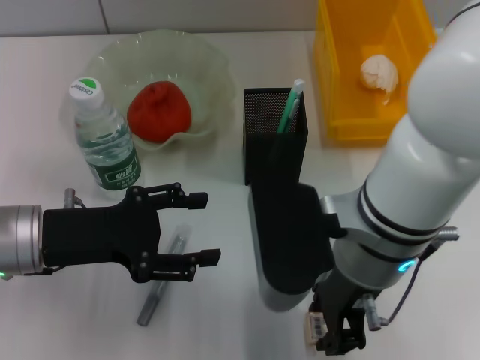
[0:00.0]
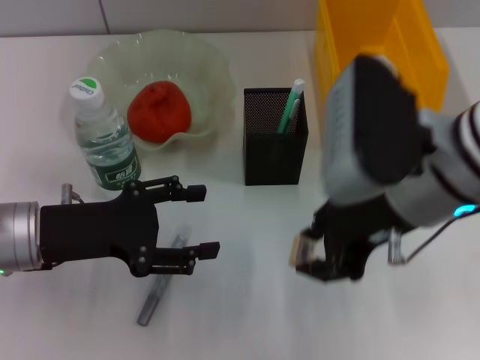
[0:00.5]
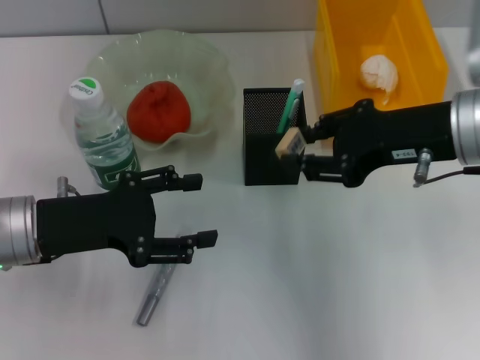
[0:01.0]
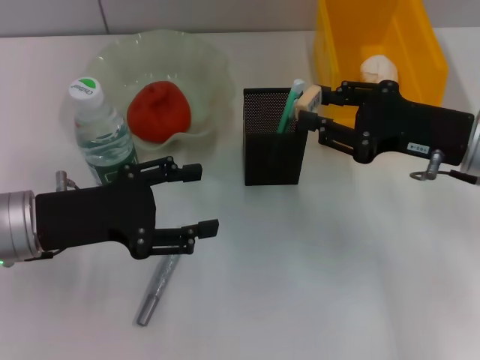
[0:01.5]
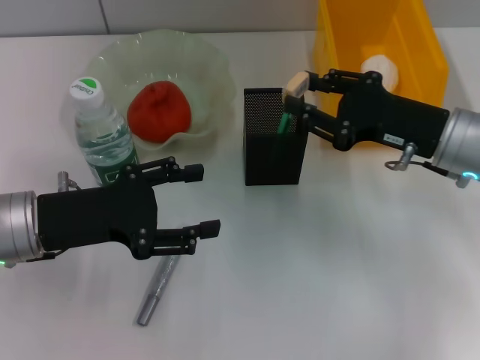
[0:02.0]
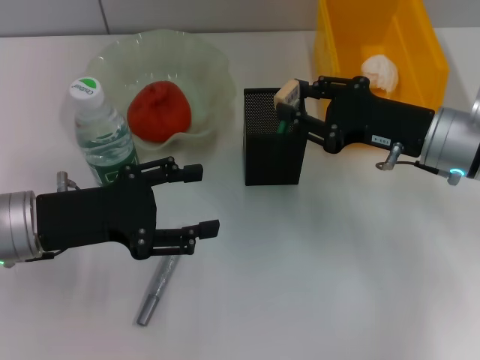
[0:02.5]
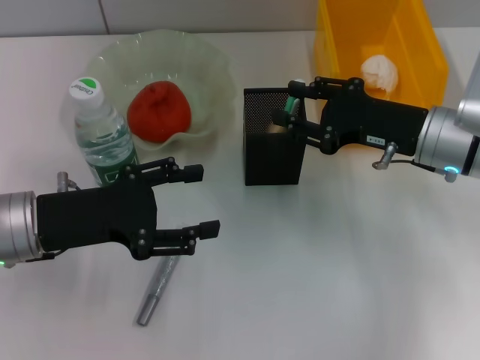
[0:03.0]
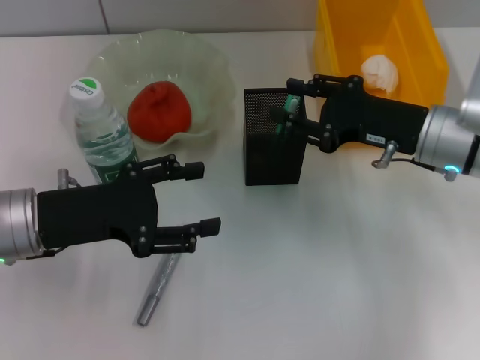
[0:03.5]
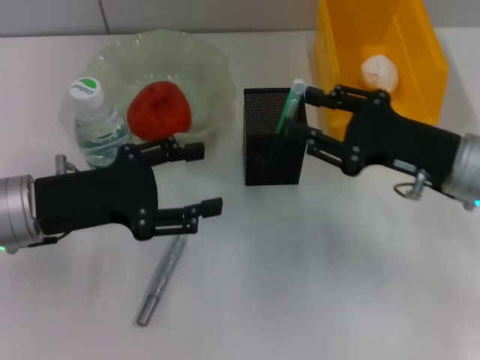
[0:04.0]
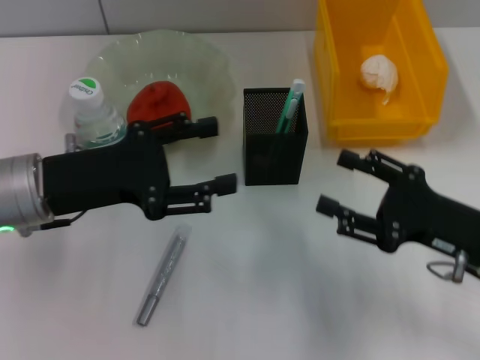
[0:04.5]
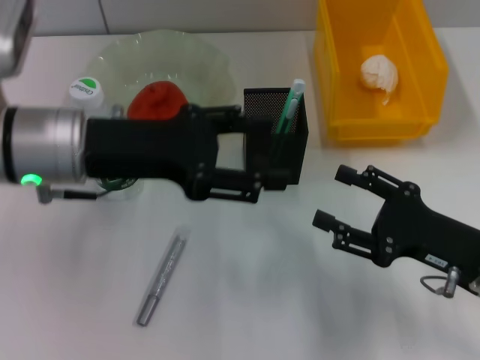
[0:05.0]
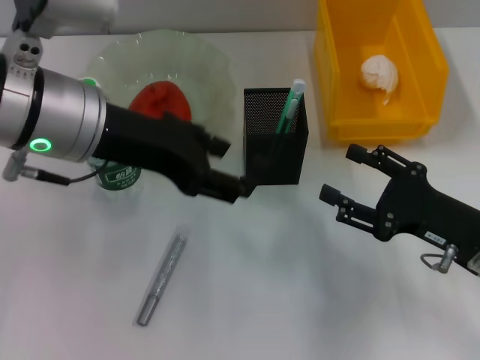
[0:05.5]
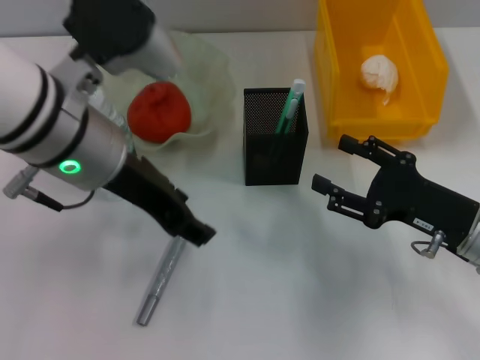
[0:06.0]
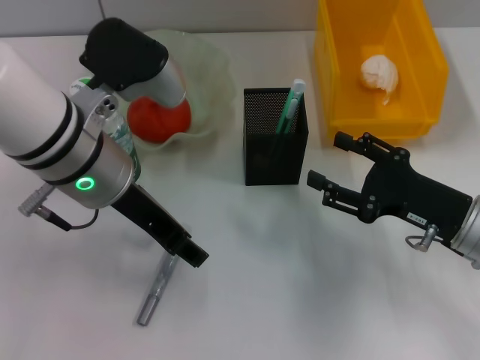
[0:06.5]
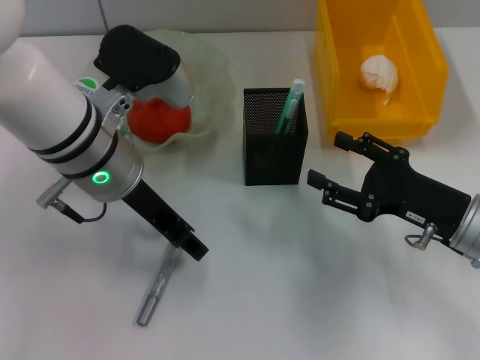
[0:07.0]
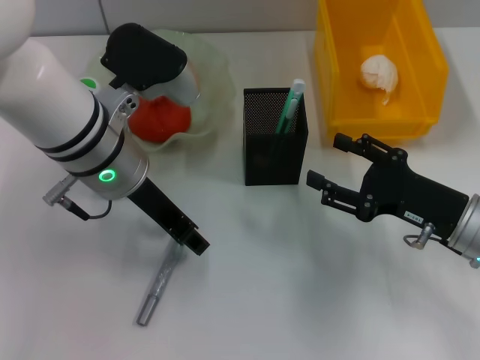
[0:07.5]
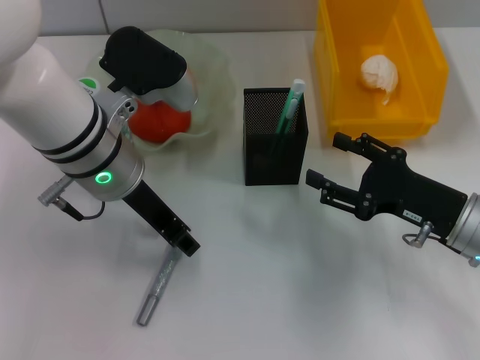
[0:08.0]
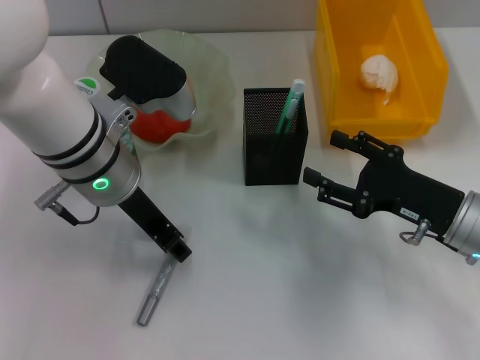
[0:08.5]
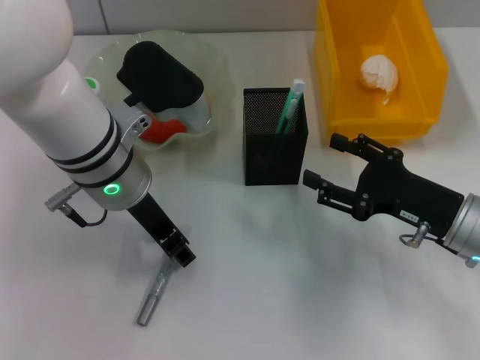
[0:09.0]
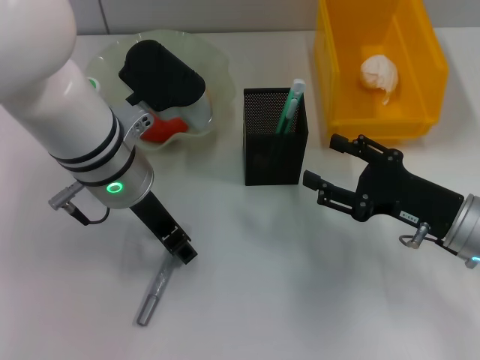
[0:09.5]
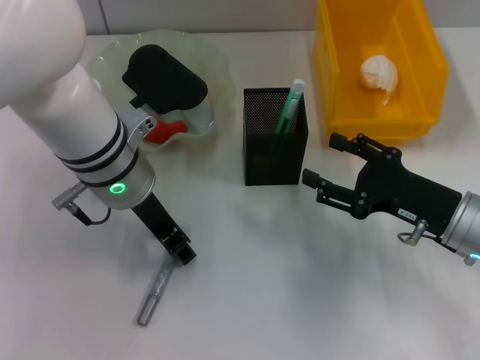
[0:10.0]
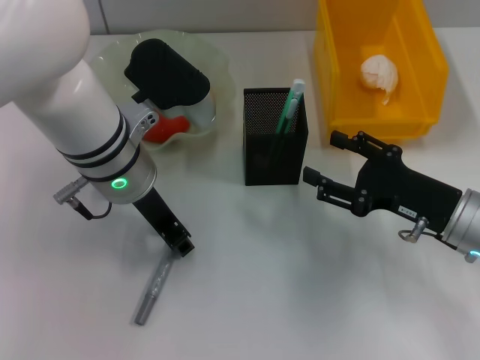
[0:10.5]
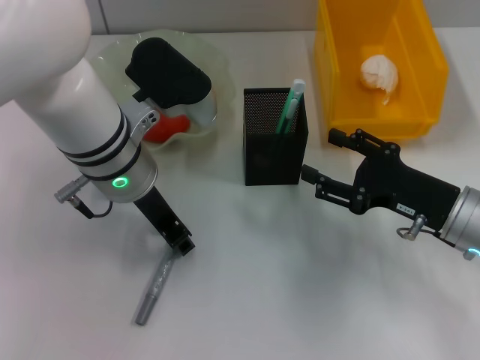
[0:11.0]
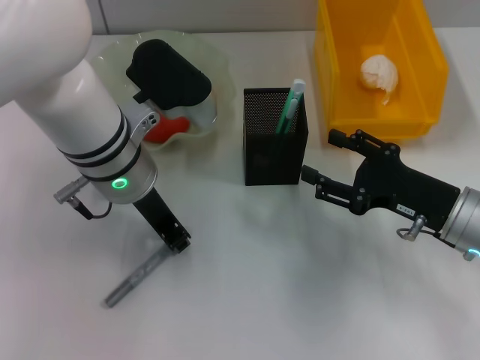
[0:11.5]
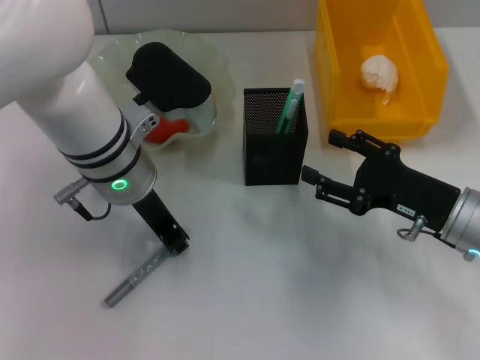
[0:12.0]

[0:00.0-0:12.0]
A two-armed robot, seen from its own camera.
Step, 0:00.5 to 0:03.5: Put the eraser into the pen holder with the right hand.
0:00.0 to 0:02.0: The right gripper travels to the right and forward by about 15 cm.
0:02.0 to 0:04.0: The grippers stay close to where they were, moving slightly.
0:04.0 to 0:06.0: The left gripper goes approximately 15 cm to the right and upward. Meanwhile the right gripper shifts by some 5 cm, and opens its fingers.
0:06.0 to 0:08.0: The left gripper moves downward, some 5 cm.
0:08.0 to 0:10.0: The grippers stay close to where they were, moving slightly.
0:10.0 to 0:12.0: The left gripper closes up.

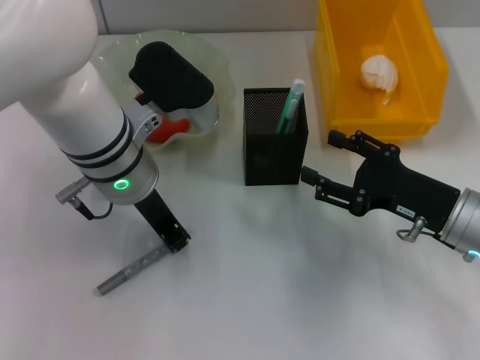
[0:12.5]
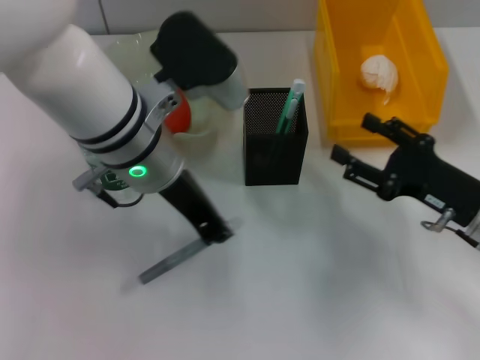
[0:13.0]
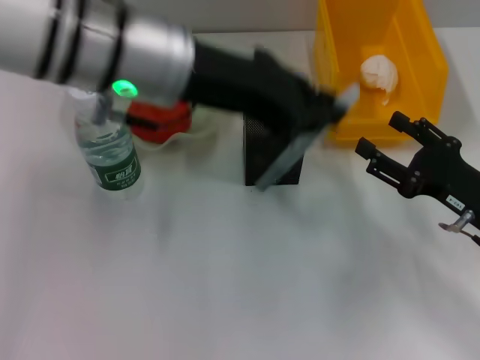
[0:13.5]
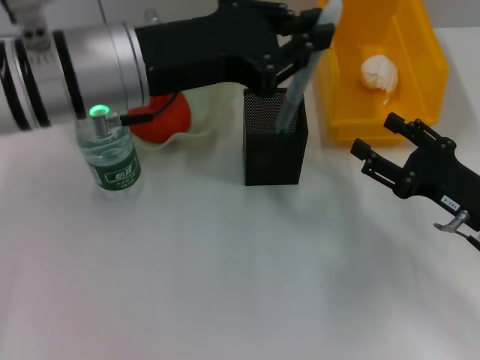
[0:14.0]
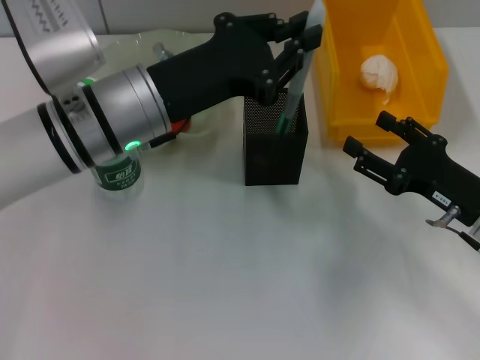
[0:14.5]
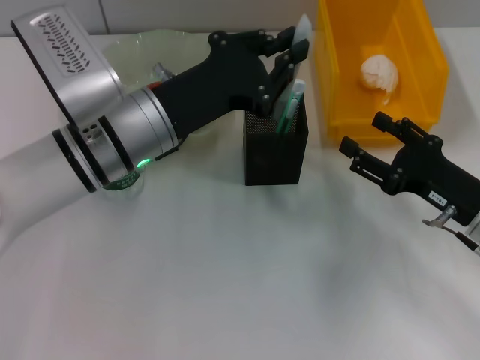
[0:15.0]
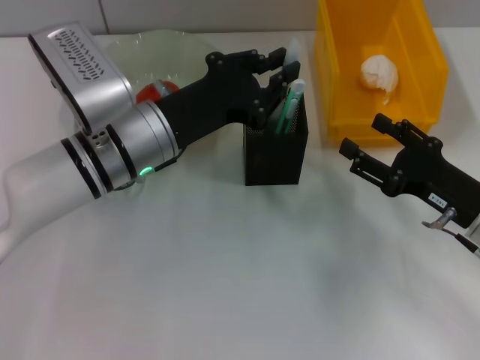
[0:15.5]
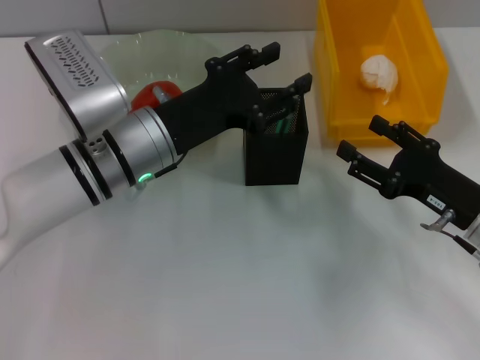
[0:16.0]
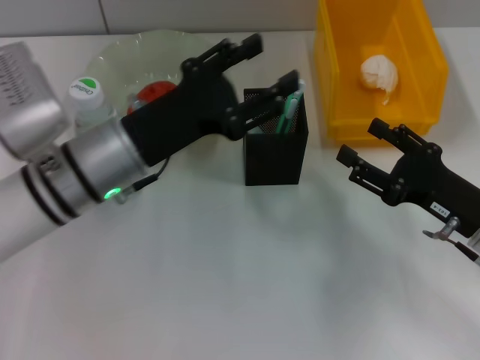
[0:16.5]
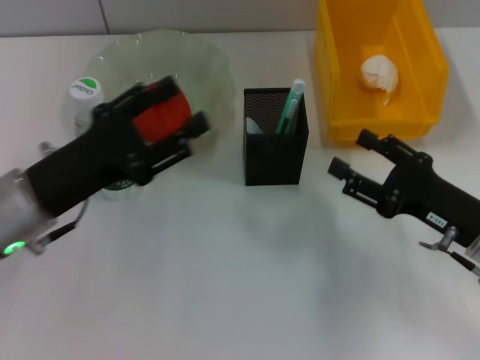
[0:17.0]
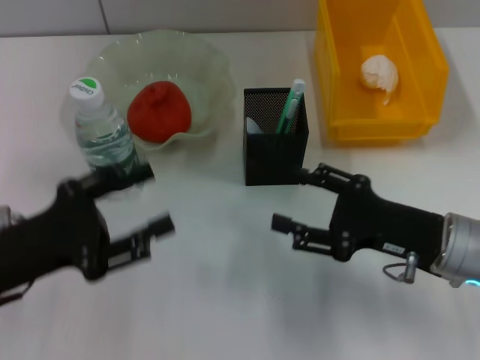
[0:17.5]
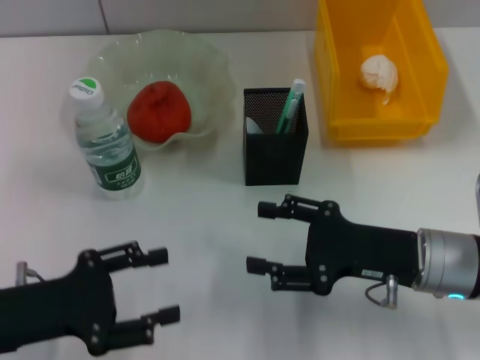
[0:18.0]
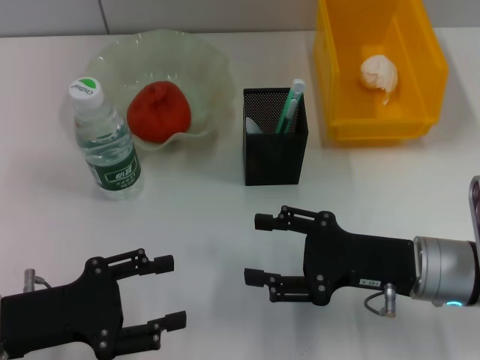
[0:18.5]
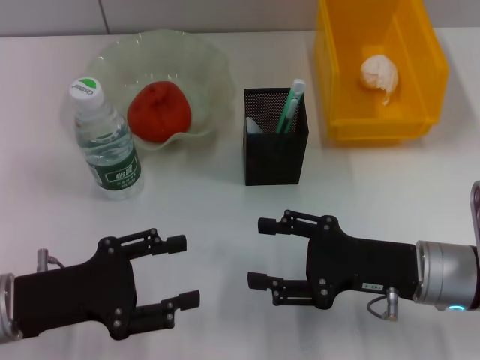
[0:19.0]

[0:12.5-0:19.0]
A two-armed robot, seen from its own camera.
0:12.5 to 0:14.5: The left gripper reaches about 10 cm upward, then returns.
0:14.5 to 0:17.0: The left gripper is displaced to the left, backward and downward by approximately 15 cm, and opens up.
0:17.0 to 0:19.0: The right gripper moves to the left, approximately 5 cm; the left gripper goes about 5 cm backward.
